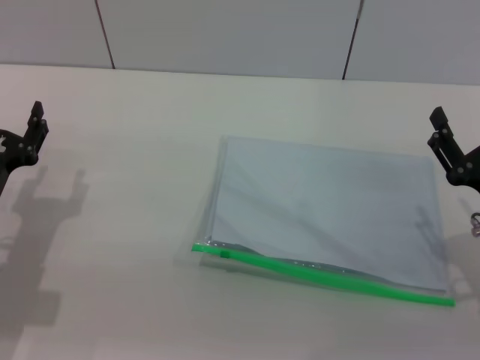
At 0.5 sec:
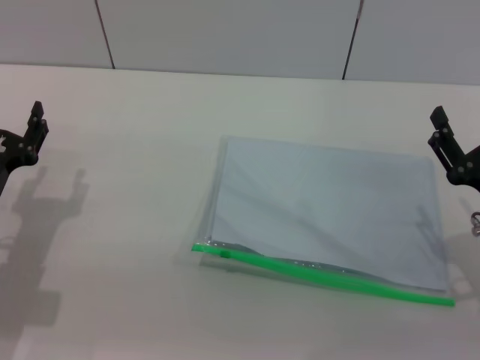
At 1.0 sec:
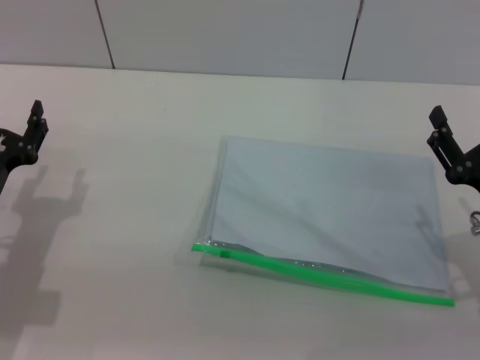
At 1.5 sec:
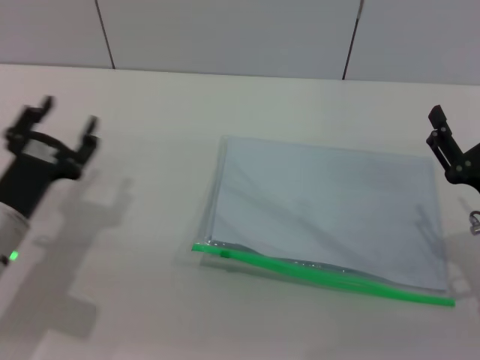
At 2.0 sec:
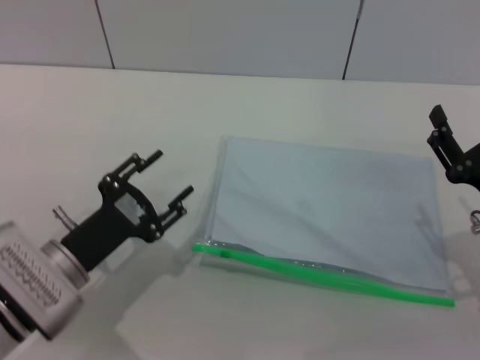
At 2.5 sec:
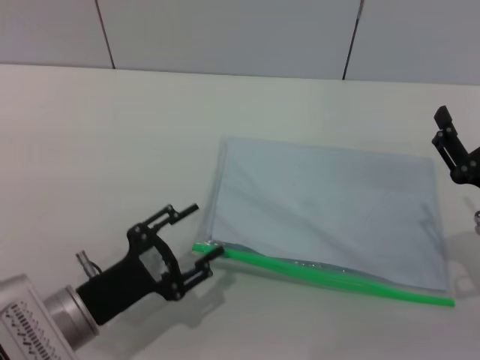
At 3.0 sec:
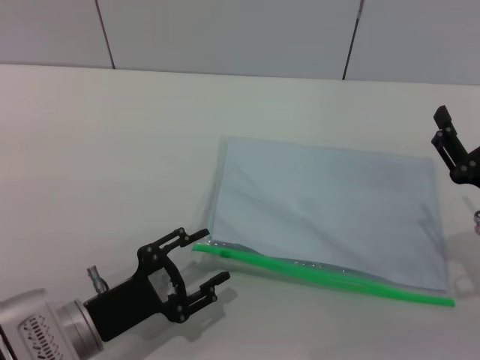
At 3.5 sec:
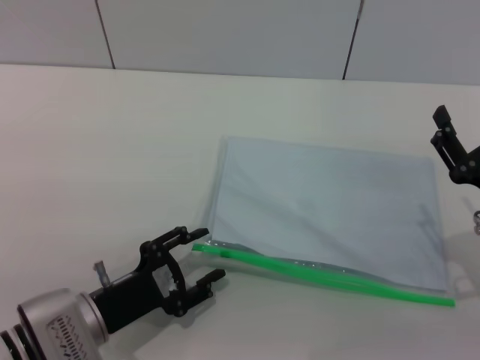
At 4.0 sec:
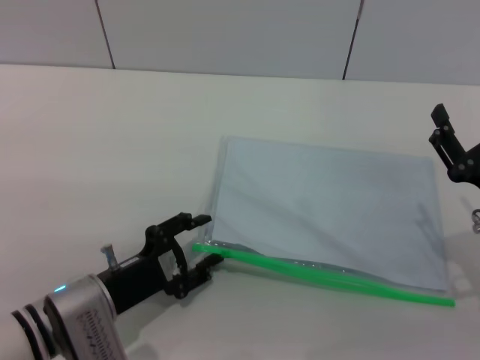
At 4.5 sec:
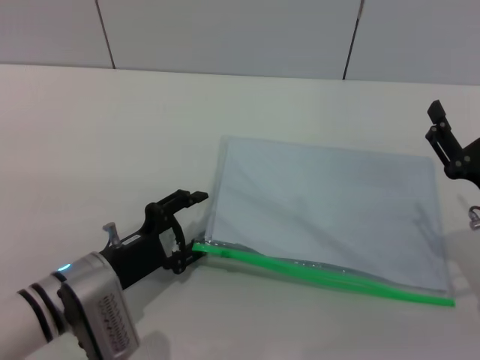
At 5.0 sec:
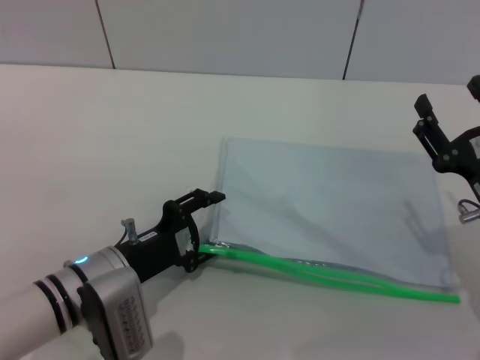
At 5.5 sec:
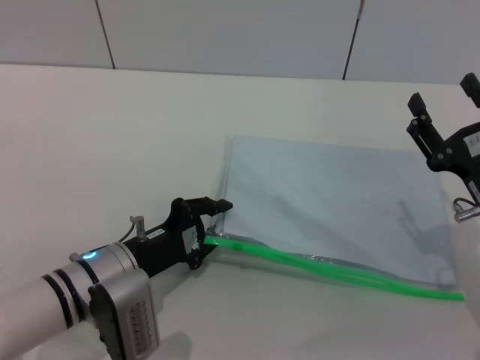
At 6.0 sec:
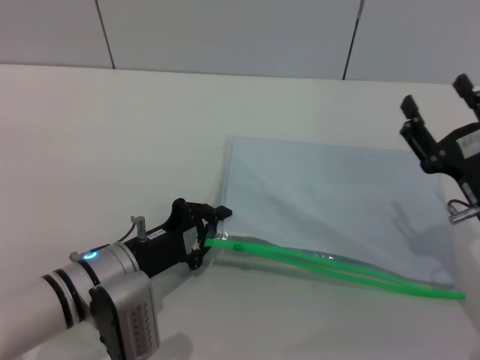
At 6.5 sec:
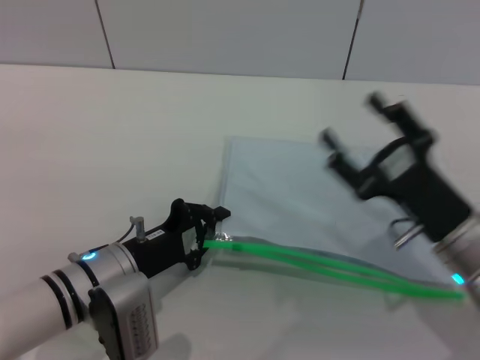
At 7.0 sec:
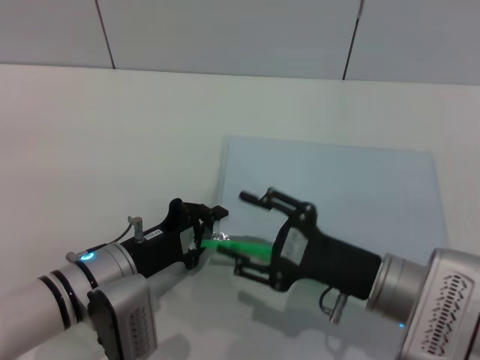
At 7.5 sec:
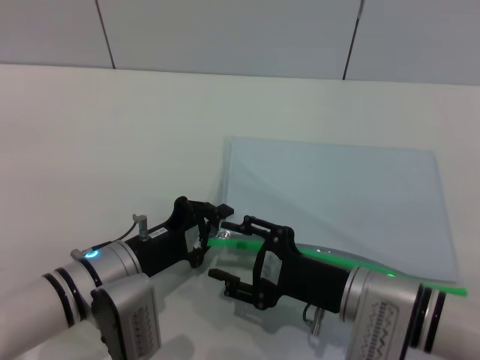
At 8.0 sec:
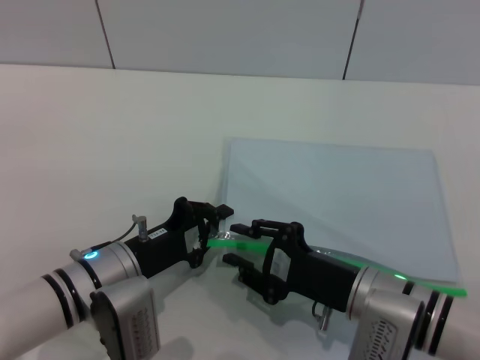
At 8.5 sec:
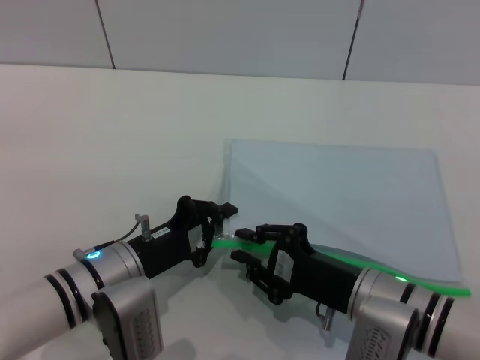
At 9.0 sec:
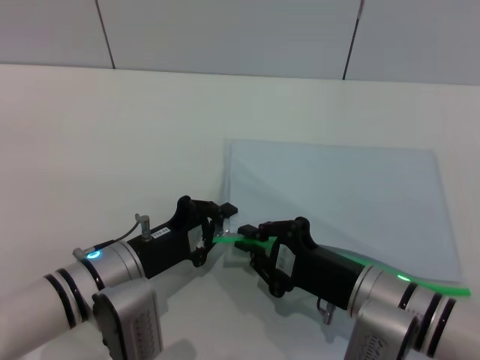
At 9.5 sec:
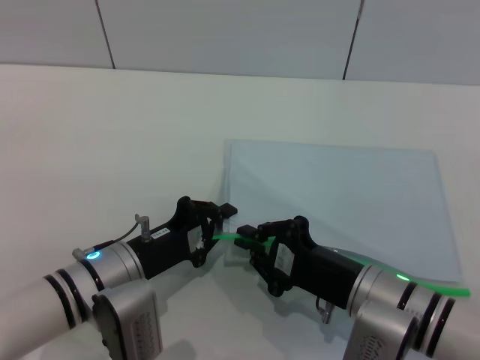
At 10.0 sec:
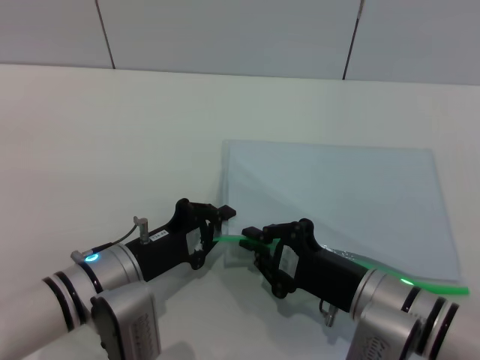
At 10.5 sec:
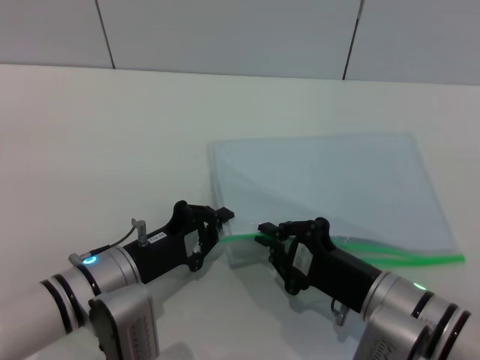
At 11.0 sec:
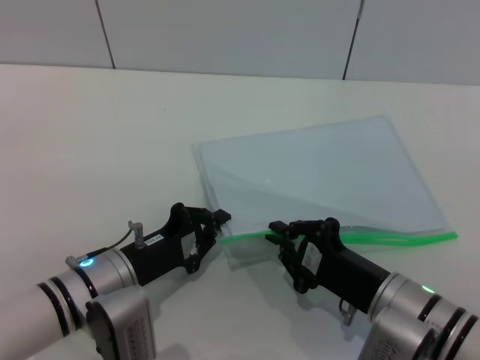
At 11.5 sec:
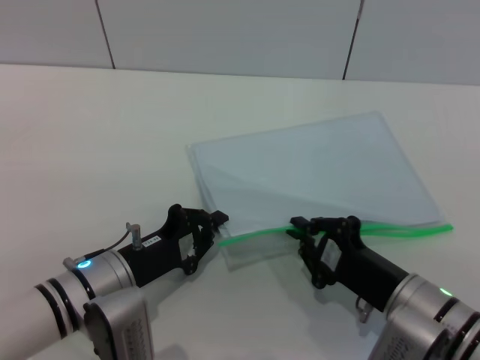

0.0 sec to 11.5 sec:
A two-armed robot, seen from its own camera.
Step, 0.0 sec to 6.0 sec: Pick up the transparent plastic bag with the left gripper.
0.0 sec to 2.0 sec: The left gripper is displaced to the right by roughly 5 cm.
4.0 sec to 6.0 sec: The left gripper closes.
6.0 sec to 7.5 sec: The right gripper travels to the left by some 10 cm.
7.5 sec to 9.5 sec: The right gripper closes.
9.5 sec to 11.5 sec: There are only small adjustments of the grippers.

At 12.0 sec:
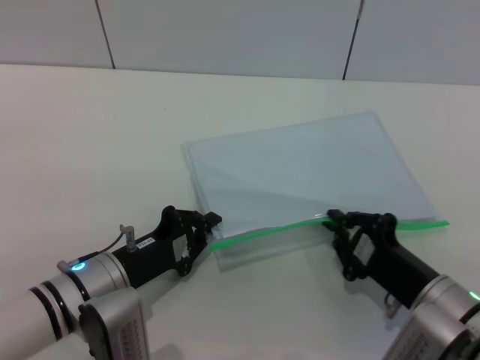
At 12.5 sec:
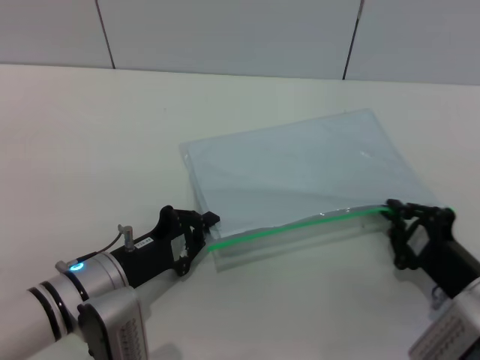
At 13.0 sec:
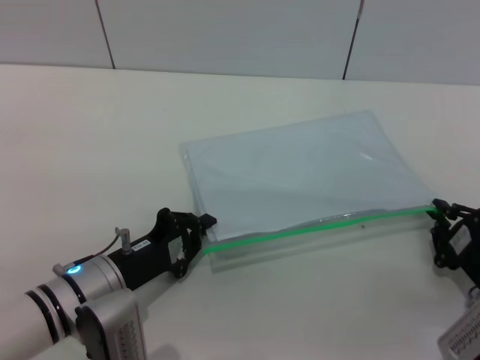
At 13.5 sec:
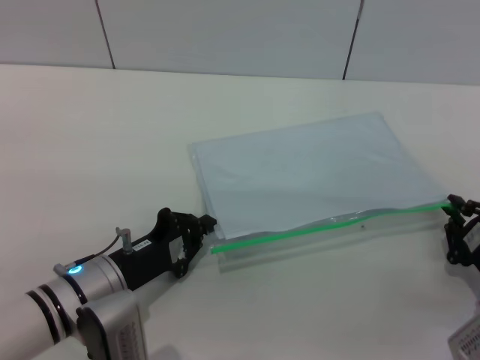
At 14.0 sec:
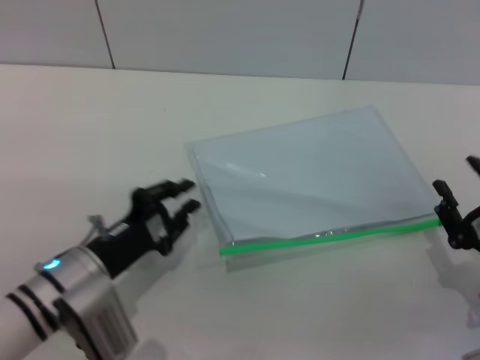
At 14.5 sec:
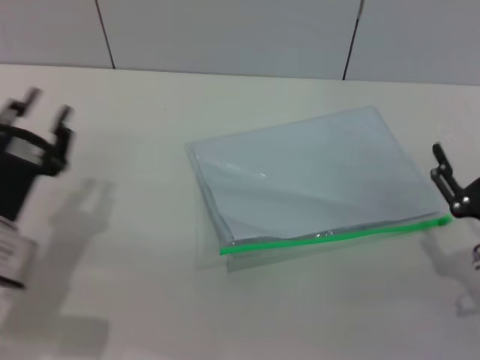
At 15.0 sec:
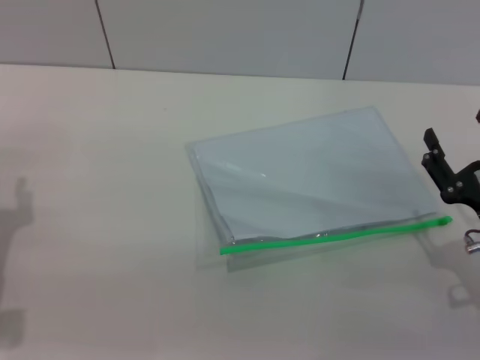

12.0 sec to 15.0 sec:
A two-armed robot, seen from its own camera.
Step, 14.0 sec to 14.5 sec: Place the transparent plastic bag.
12.0 sec to 13.5 sec: The right gripper is displaced to the right by approximately 10 cm.
13.5 sec to 15.0 sec: The right gripper changes place by some 5 cm, and opens up. Meanwhile the left gripper travels to the left by roughly 15 cm, and opens up.
